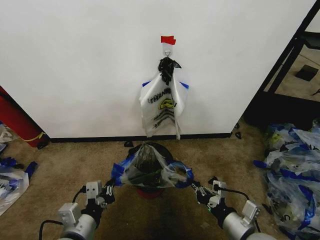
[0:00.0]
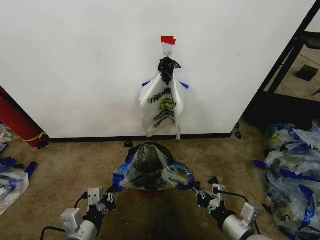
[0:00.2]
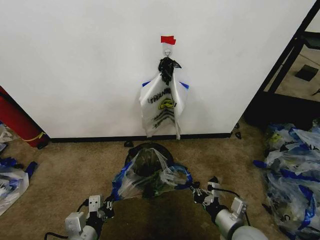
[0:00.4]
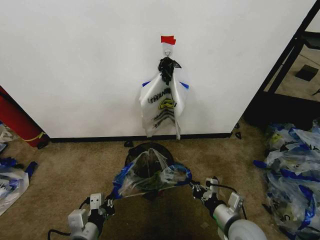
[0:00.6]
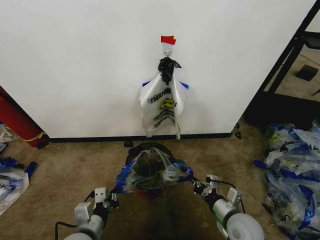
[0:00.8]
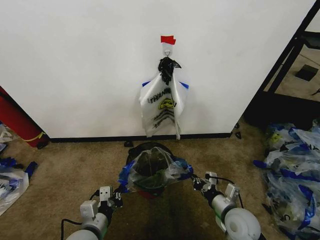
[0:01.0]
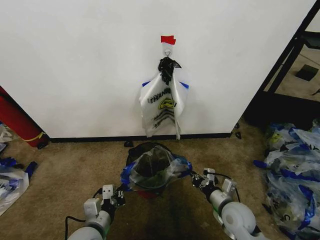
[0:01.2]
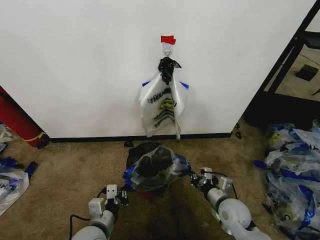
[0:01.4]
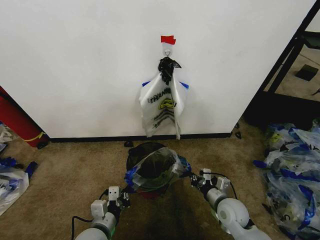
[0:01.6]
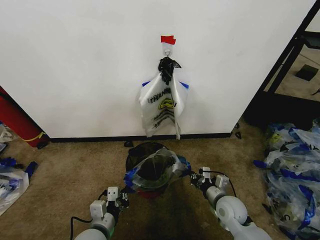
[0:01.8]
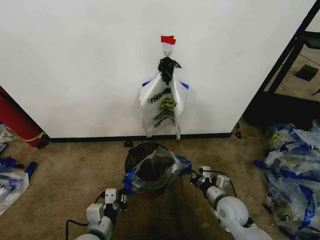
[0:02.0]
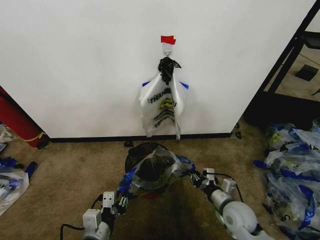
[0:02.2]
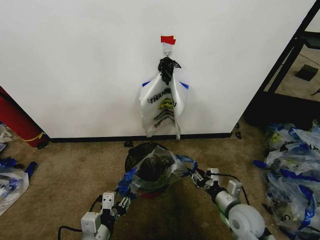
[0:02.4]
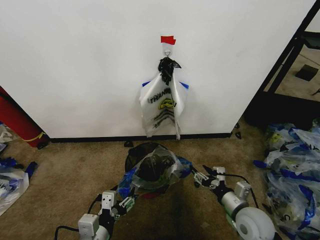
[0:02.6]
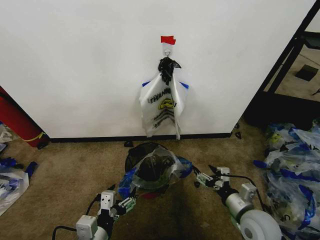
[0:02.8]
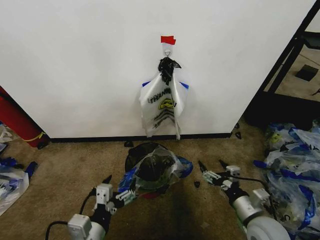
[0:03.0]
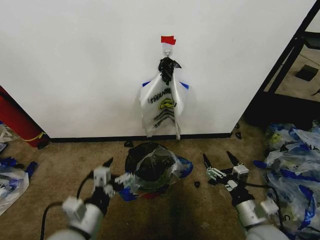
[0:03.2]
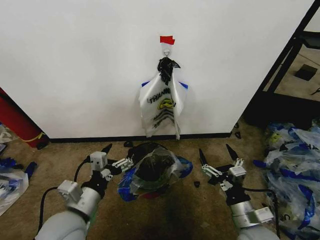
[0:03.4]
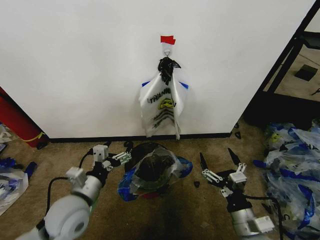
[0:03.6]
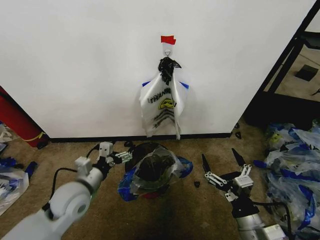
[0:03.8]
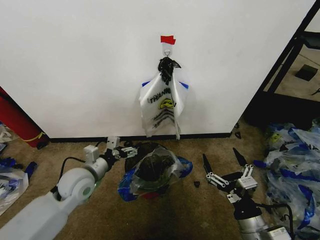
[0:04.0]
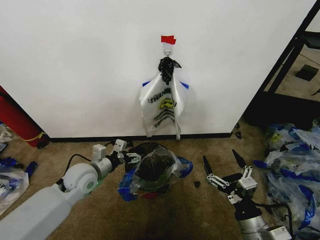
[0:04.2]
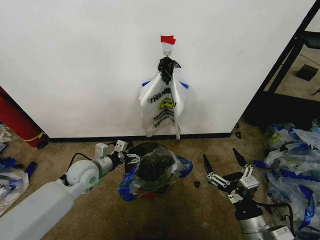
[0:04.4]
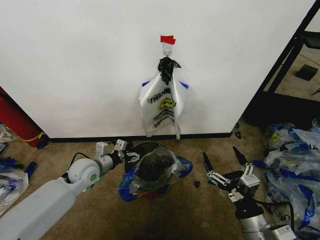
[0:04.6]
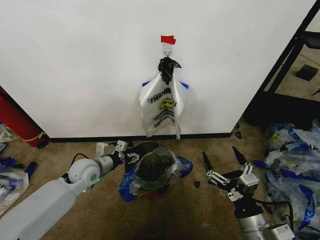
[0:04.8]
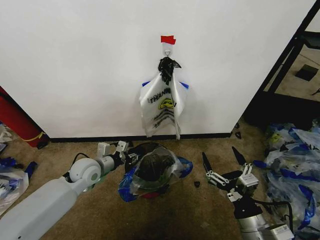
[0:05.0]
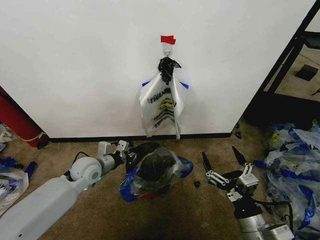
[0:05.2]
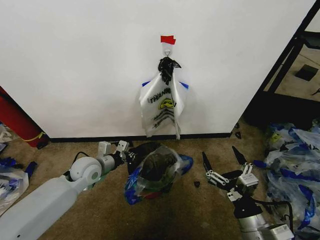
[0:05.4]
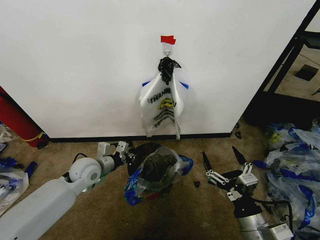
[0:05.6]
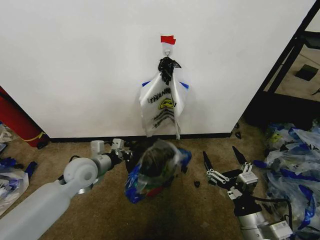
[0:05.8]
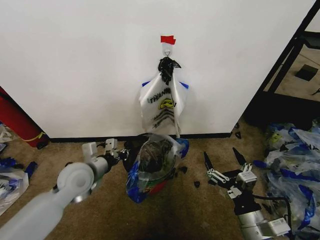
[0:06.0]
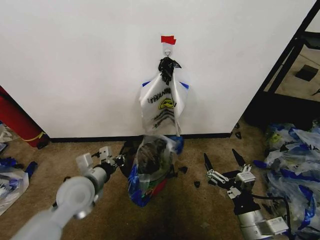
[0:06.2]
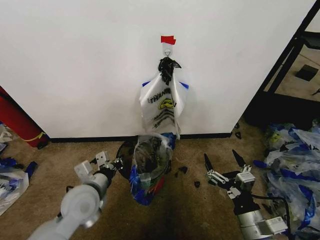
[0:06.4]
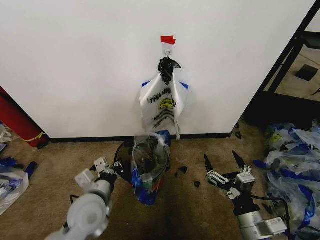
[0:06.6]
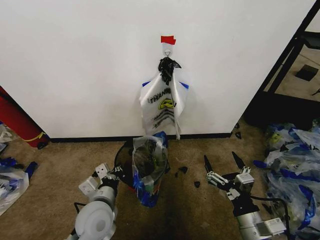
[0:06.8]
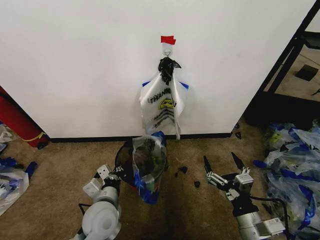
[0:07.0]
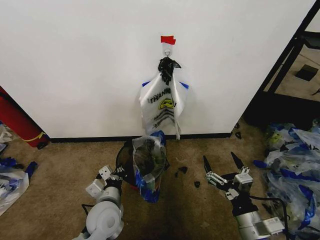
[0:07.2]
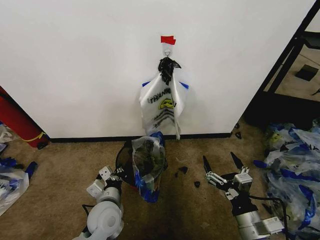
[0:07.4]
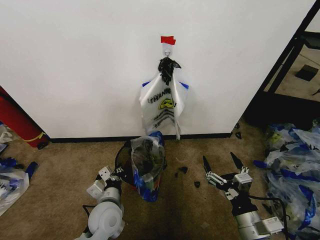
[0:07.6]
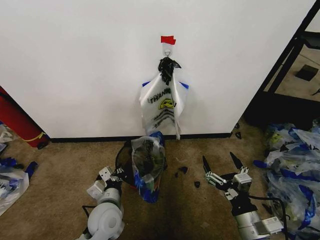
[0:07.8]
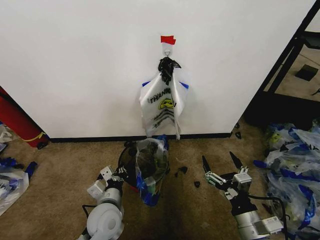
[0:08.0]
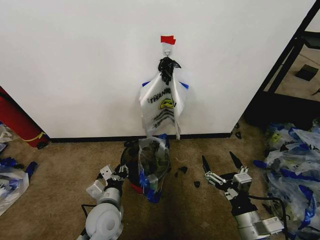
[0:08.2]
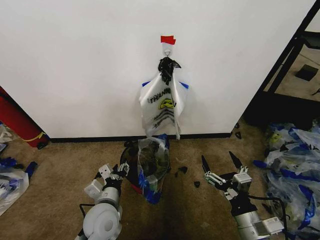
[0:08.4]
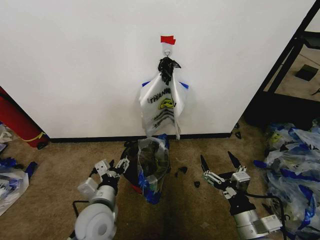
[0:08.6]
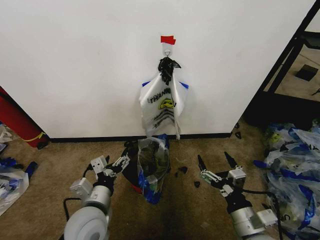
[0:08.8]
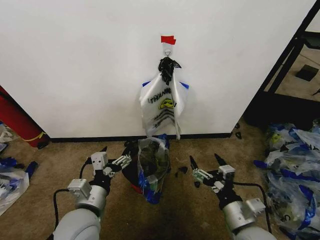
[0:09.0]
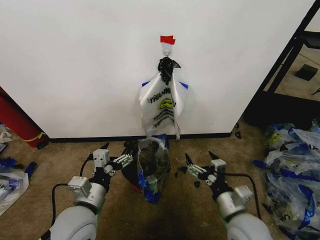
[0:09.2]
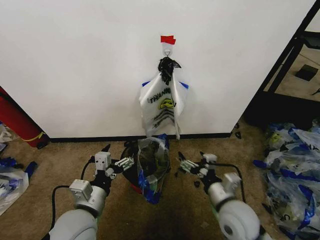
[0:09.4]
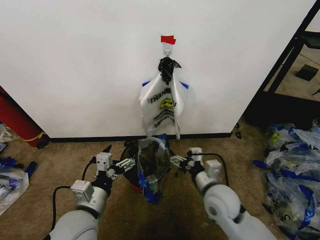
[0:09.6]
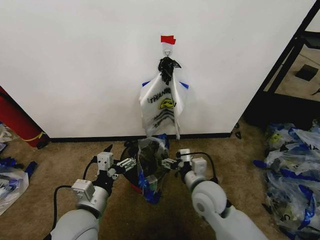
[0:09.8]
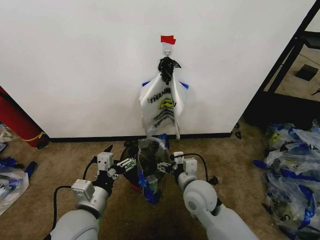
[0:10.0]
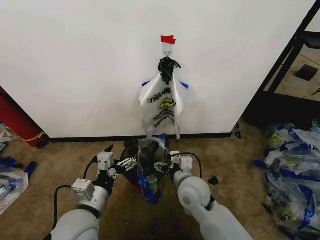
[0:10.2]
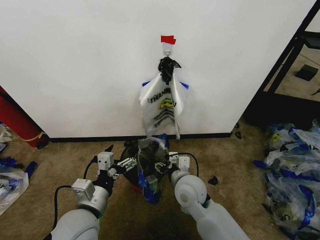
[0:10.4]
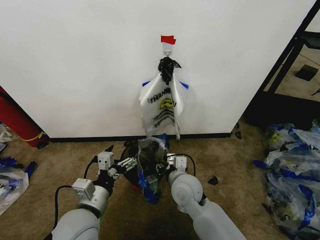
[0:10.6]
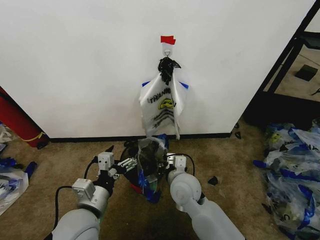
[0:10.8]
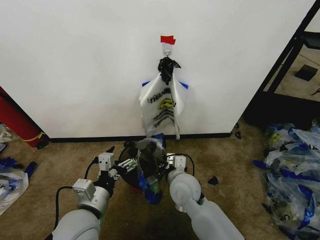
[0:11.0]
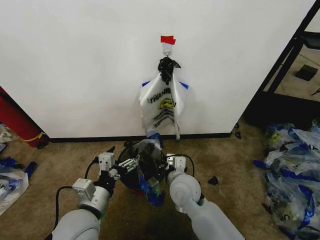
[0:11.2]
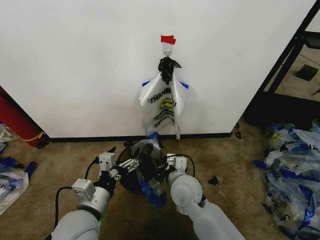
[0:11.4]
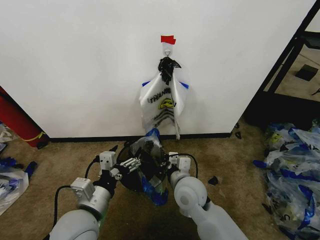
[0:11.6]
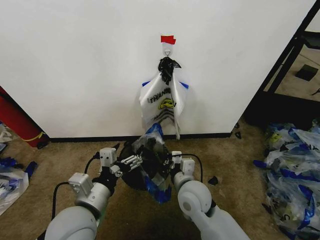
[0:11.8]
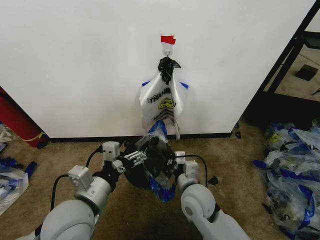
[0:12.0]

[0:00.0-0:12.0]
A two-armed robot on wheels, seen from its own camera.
Task of the whole recording: Pick up the garbage bag from the wall and place it over the trash bin.
0.0 to 1.6 s: The left gripper heads downward, covering approximately 10 cm. Meanwhile the right gripper shifts about 15 cm forward and downward.
1.6 to 3.0 s: The left gripper shifts roughly 10 cm upward and backward, and opens its fingers. The right gripper moves backward and upward, about 10 cm, and opens up.
3.0 to 4.4 s: The right gripper is displaced backward by roughly 5 cm. Meanwhile the left gripper moves forward, roughly 25 cm.
4.4 to 6.0 s: The left gripper changes place by some 5 cm, and closes its fingers.
6.0 to 7.6 s: The left gripper is displaced downward, backward and to the right by some 15 cm.
7.6 to 9.0 s: The left gripper shifts some 10 cm upward and backward, and opens up.
9.0 to 10.4 s: The right gripper travels forward and to the left by about 20 cm.
10.4 to 12.0 s: The left gripper moves upward, roughly 5 cm; the right gripper closes its fingers.

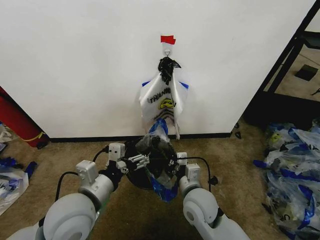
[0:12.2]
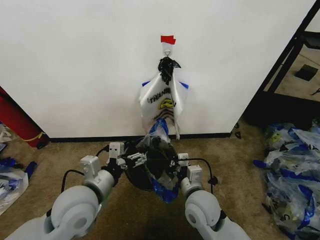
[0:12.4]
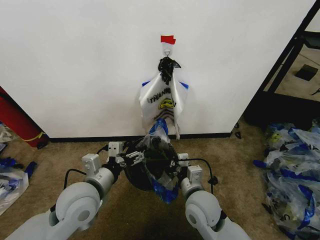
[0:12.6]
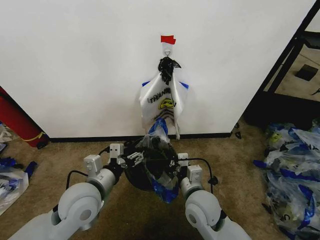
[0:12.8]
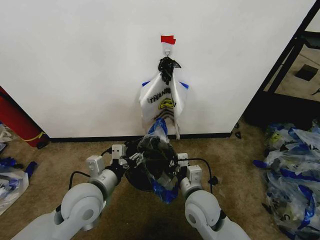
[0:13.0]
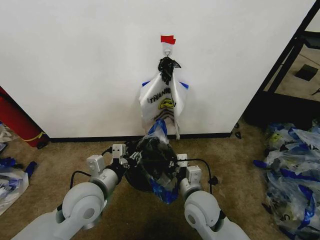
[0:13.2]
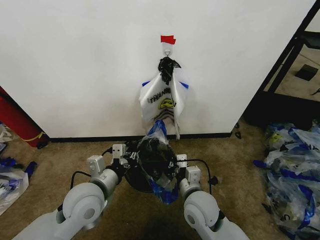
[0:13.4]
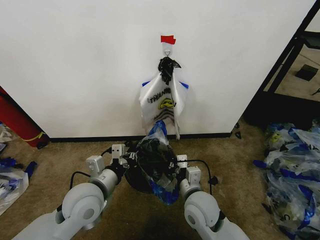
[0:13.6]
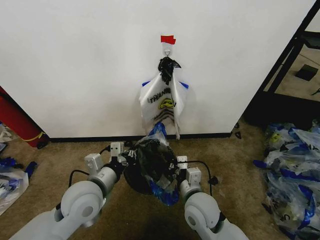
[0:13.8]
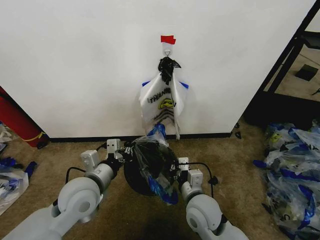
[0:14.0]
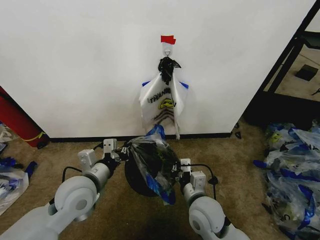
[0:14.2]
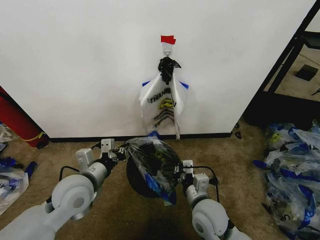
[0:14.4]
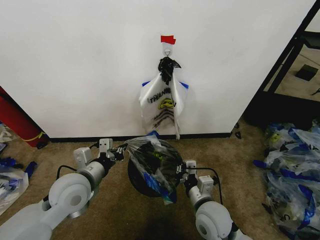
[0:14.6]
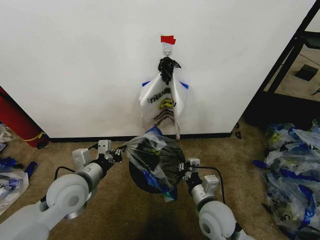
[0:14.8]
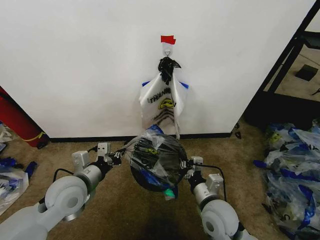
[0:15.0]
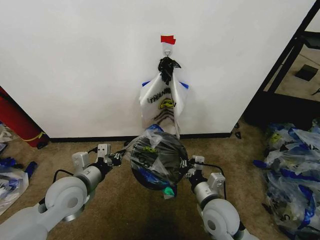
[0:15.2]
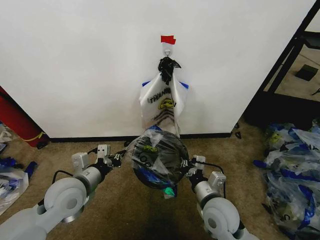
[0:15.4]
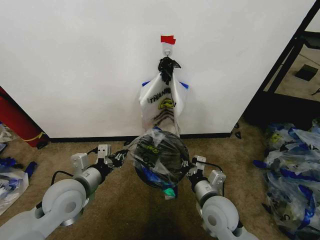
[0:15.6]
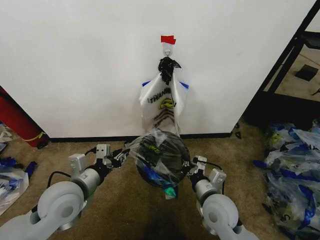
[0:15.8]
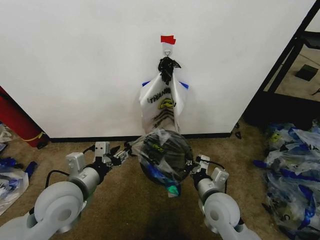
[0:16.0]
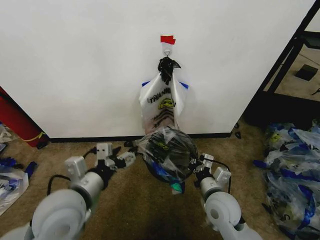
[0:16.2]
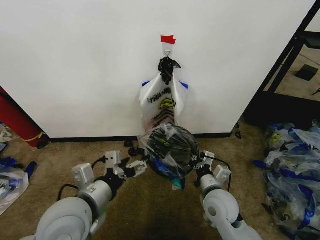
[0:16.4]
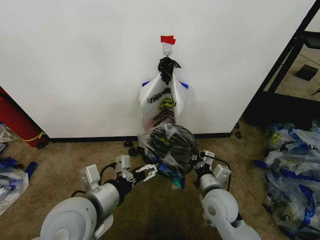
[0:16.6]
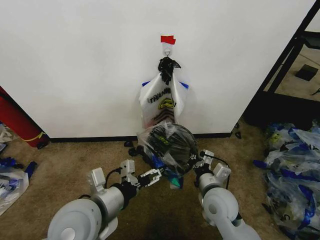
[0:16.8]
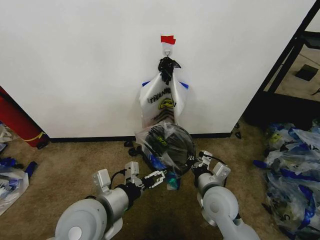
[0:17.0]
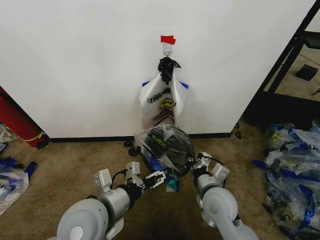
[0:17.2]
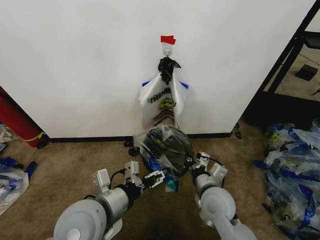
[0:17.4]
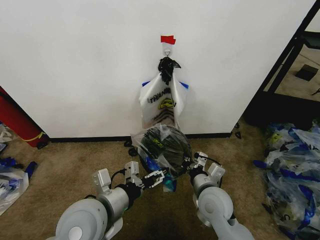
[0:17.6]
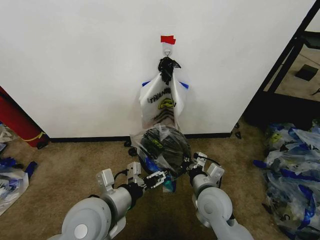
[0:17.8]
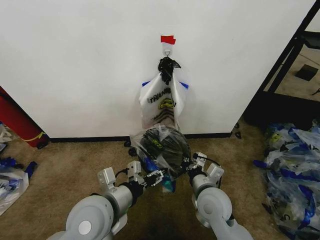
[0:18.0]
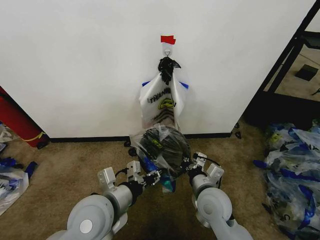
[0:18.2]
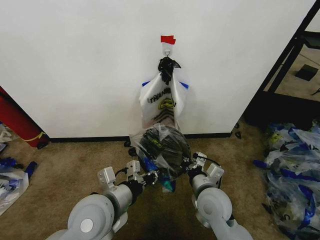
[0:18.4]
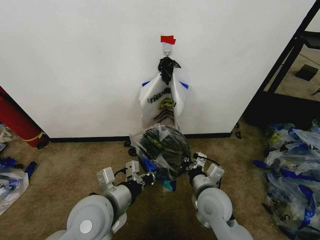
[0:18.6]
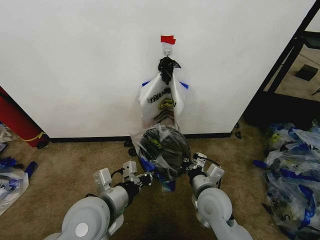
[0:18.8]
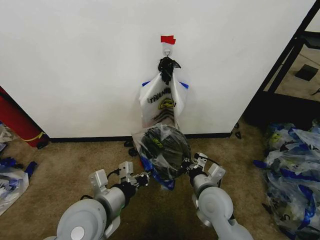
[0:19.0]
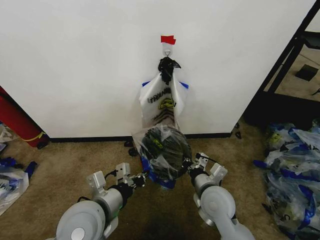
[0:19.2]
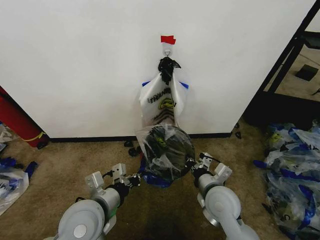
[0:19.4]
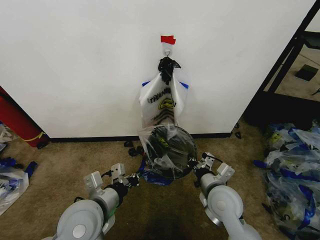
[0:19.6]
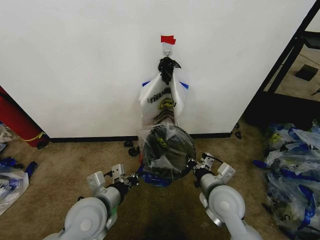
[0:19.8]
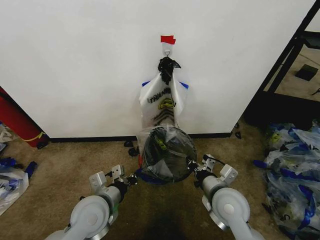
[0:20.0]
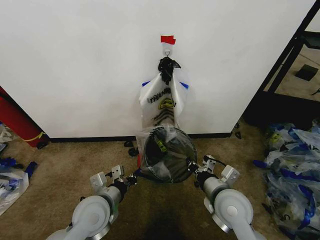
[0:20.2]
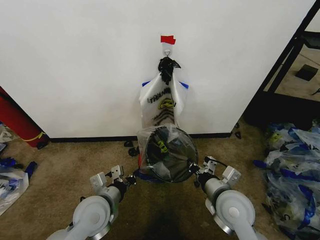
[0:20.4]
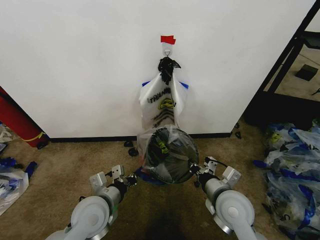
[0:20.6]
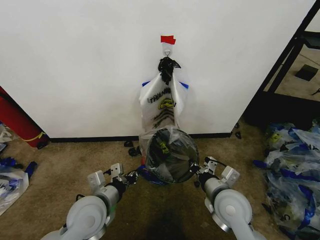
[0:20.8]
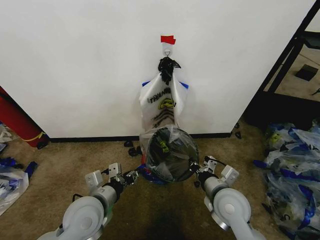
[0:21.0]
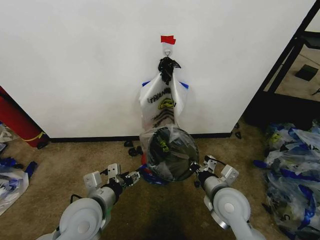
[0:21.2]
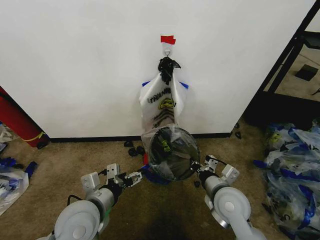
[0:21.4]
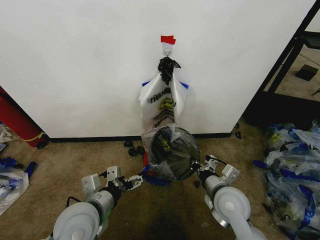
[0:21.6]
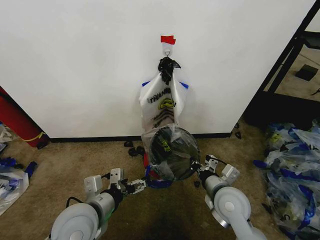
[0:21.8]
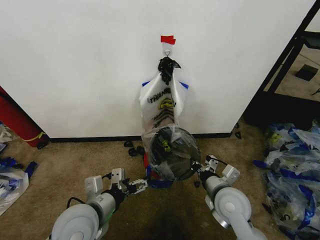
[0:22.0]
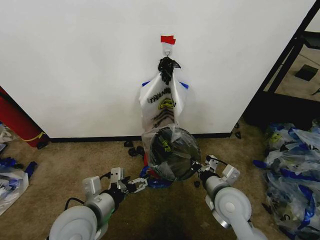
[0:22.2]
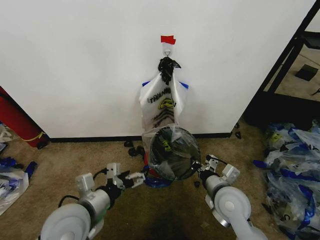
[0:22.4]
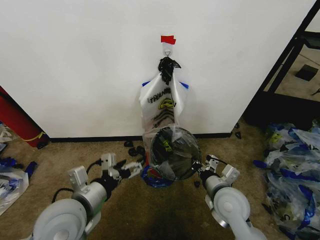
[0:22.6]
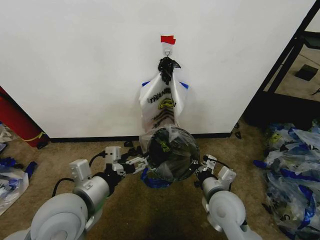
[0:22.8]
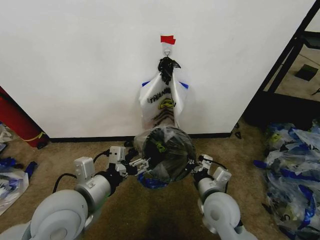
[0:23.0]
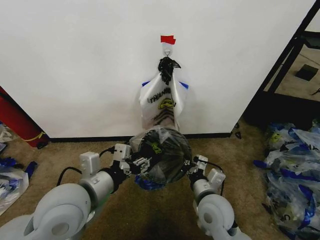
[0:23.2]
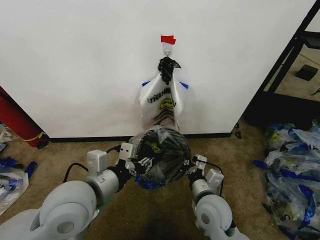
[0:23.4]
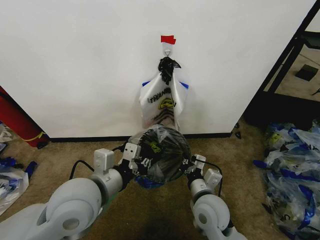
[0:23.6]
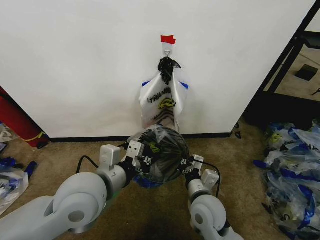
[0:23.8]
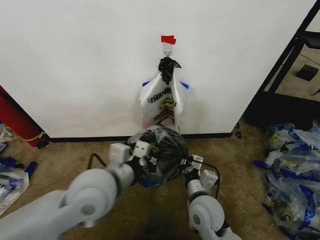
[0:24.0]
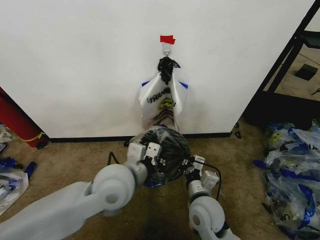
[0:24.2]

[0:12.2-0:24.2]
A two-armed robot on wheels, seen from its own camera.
Task of the whole recording: Pick up the garbage bag from the wall and place it over the trash bin.
12.2 to 13.8 s: The left gripper goes approximately 5 cm forward, and closes.
13.8 to 15.2 s: The right gripper moves to the right, some 5 cm, while the left gripper goes approximately 5 cm to the left.
15.2 to 16.6 s: The left gripper moves backward, to the right and upward, about 10 cm, and opens its fingers.
16.6 to 18.2 s: The left gripper closes its fingers.
18.2 to 19.8 s: The grippers stay close to where they were, moving slightly.
19.8 to 21.2 s: The left gripper opens its fingers.
21.2 to 22.6 s: The left gripper shifts about 5 cm upward.
22.6 to 24.2 s: The left gripper heads to the right and forward, covering roughly 10 cm, and closes its fingers; the right gripper moves to the left, roughly 5 cm.
